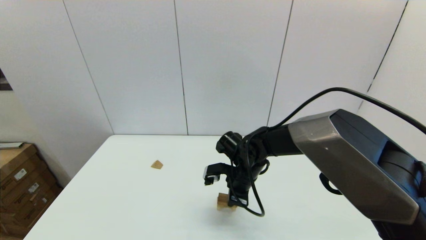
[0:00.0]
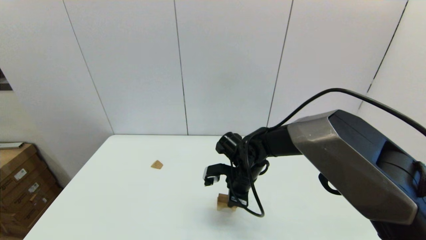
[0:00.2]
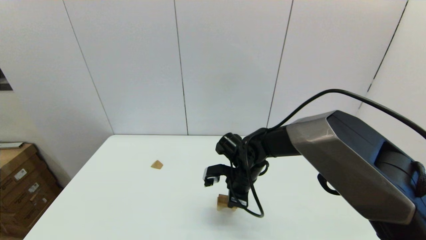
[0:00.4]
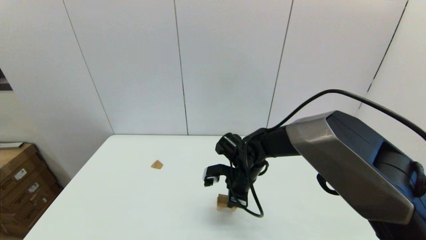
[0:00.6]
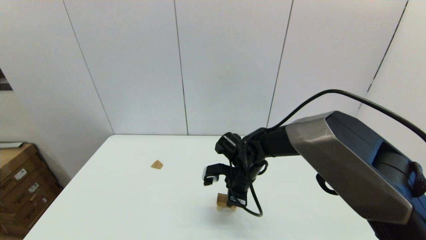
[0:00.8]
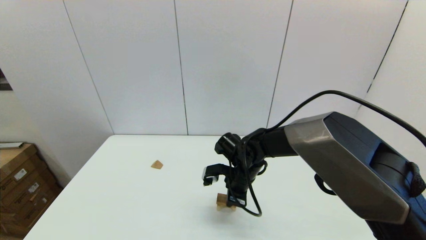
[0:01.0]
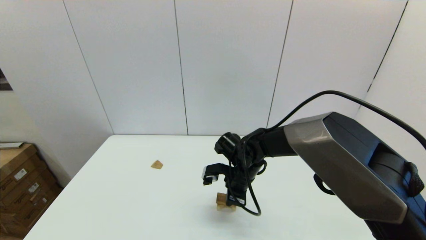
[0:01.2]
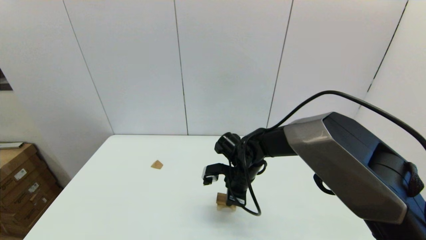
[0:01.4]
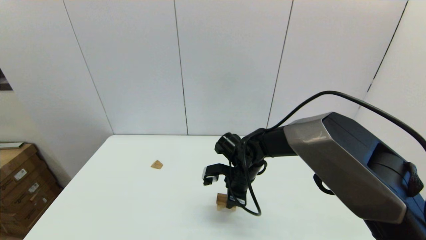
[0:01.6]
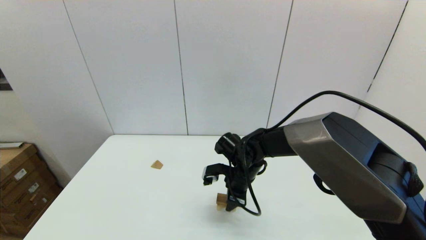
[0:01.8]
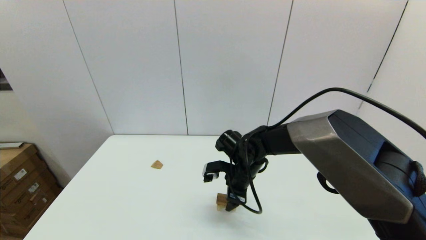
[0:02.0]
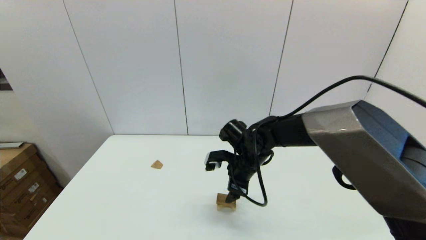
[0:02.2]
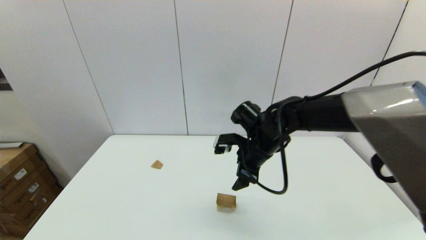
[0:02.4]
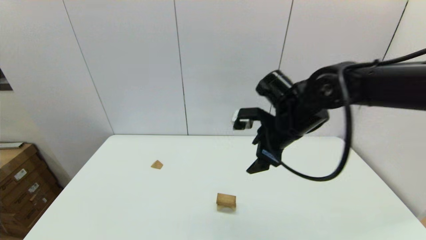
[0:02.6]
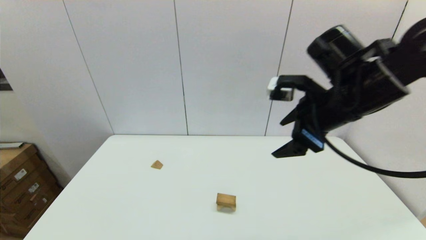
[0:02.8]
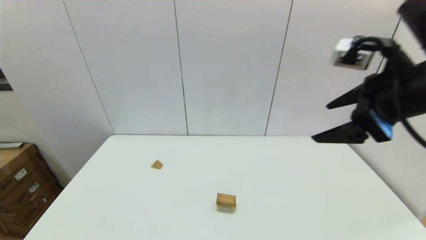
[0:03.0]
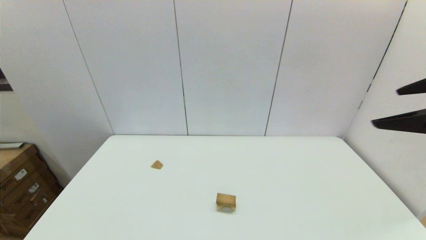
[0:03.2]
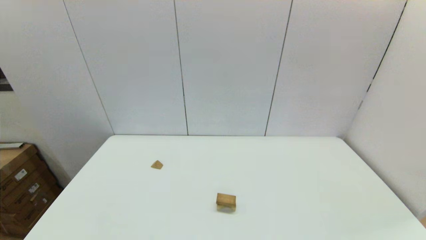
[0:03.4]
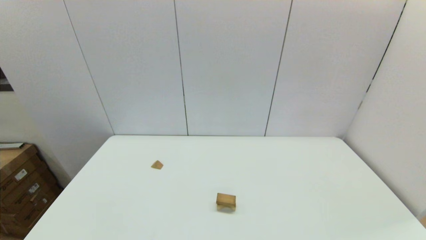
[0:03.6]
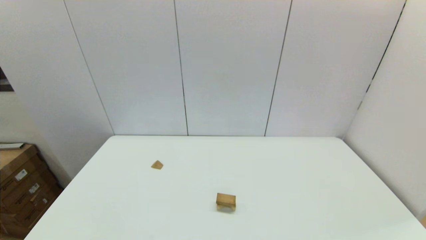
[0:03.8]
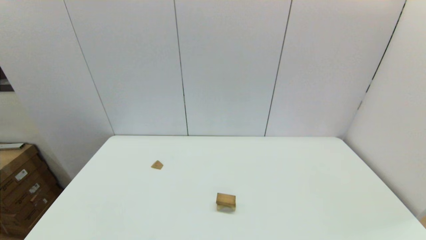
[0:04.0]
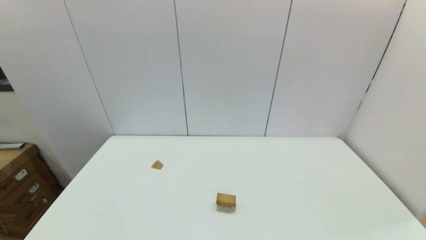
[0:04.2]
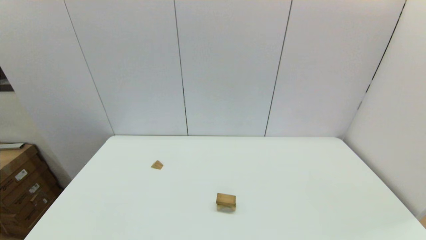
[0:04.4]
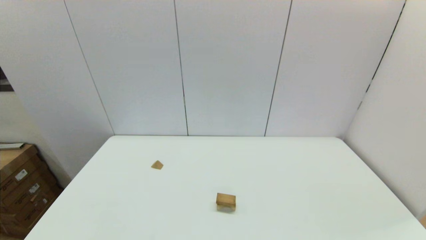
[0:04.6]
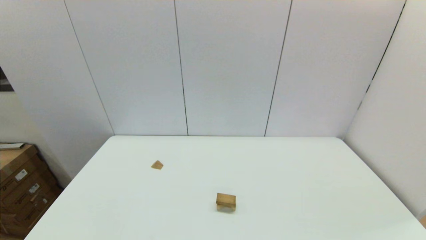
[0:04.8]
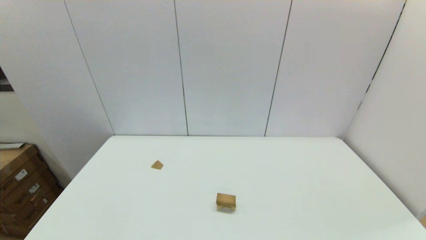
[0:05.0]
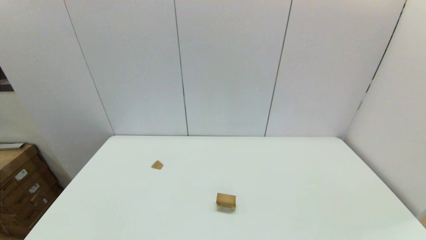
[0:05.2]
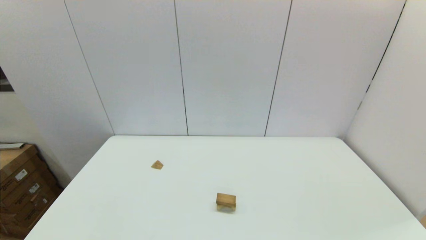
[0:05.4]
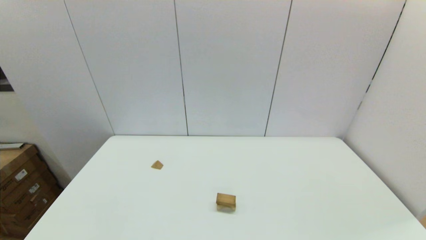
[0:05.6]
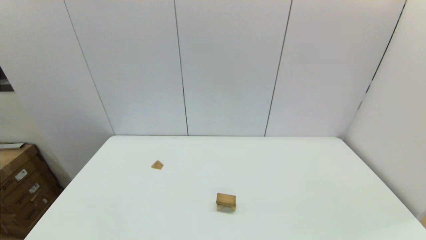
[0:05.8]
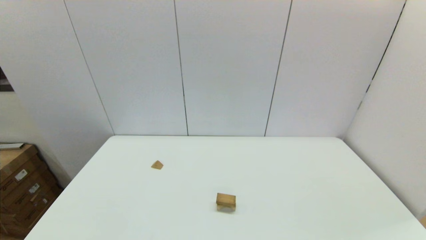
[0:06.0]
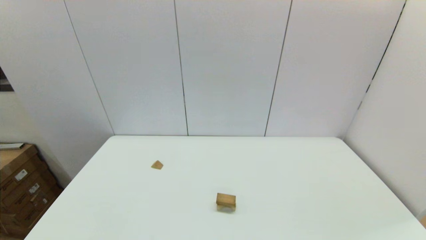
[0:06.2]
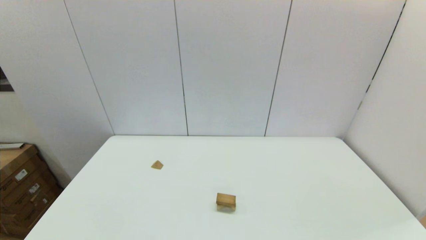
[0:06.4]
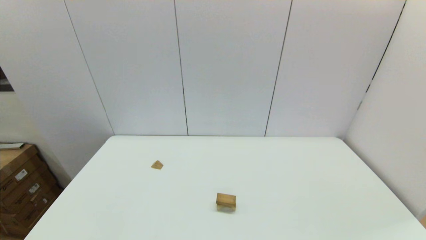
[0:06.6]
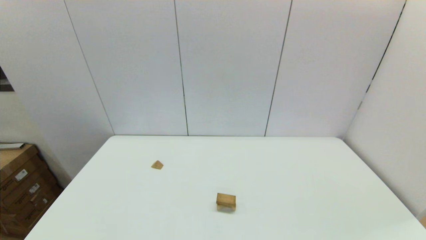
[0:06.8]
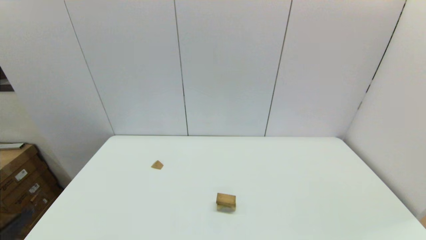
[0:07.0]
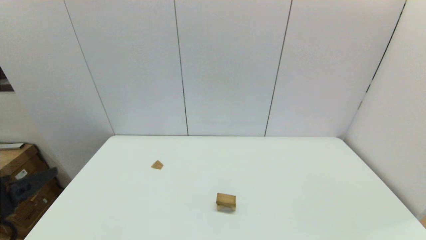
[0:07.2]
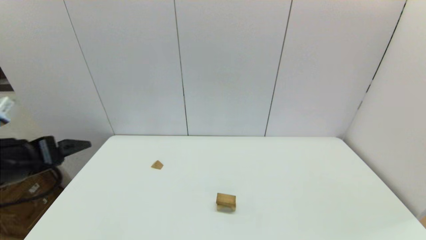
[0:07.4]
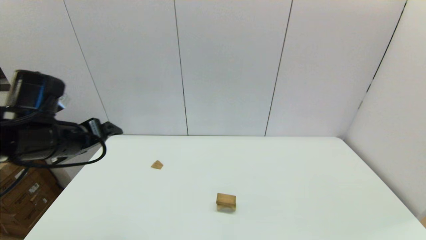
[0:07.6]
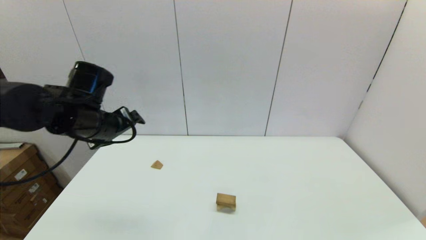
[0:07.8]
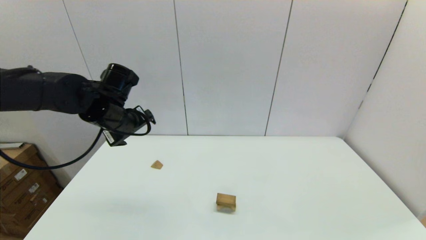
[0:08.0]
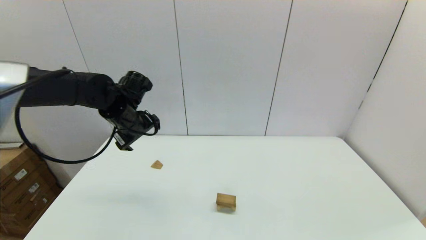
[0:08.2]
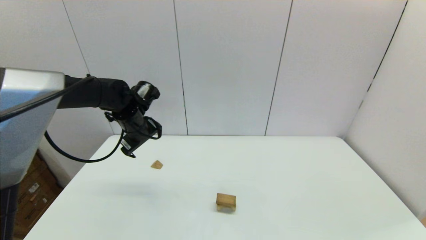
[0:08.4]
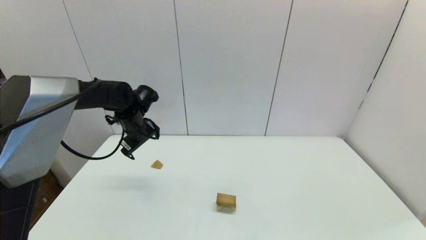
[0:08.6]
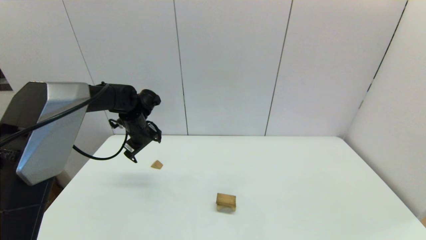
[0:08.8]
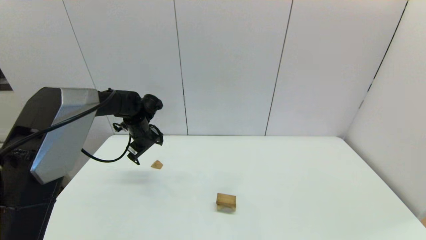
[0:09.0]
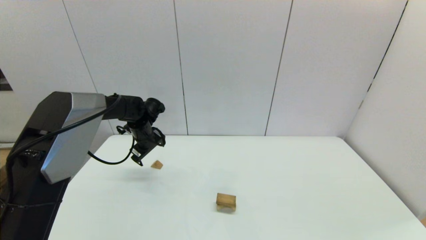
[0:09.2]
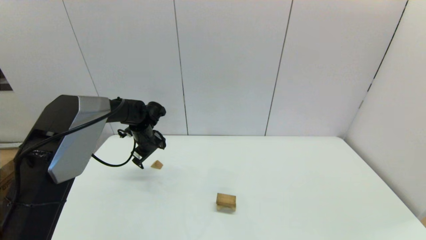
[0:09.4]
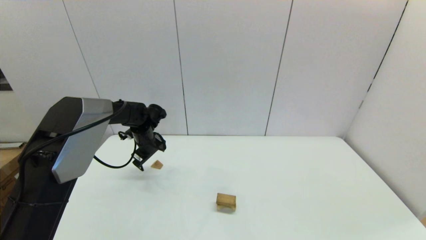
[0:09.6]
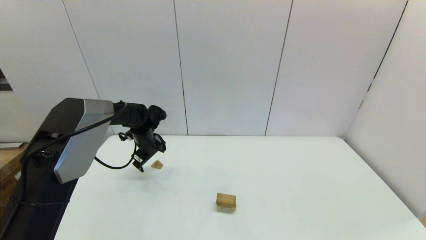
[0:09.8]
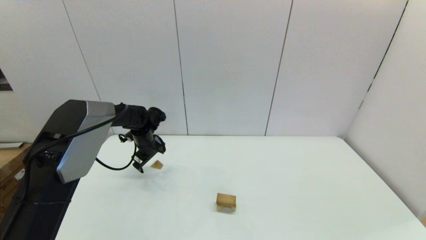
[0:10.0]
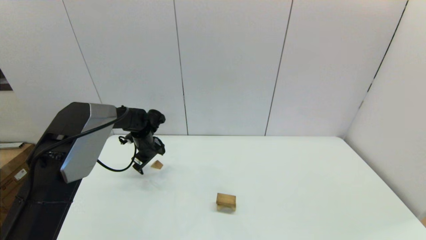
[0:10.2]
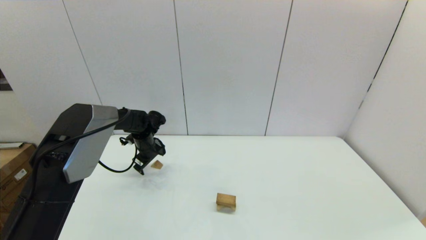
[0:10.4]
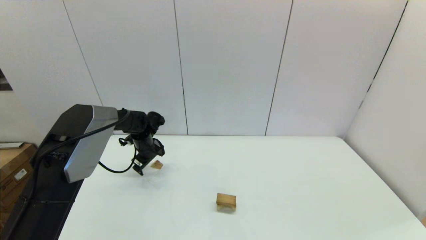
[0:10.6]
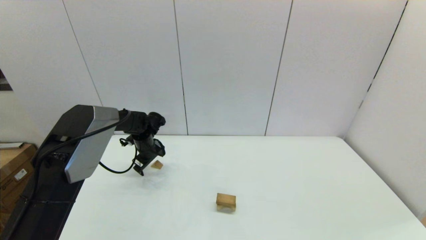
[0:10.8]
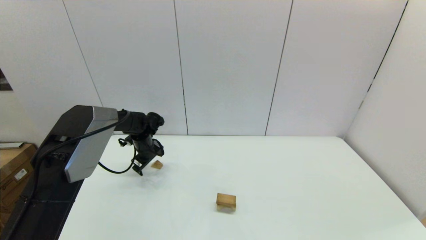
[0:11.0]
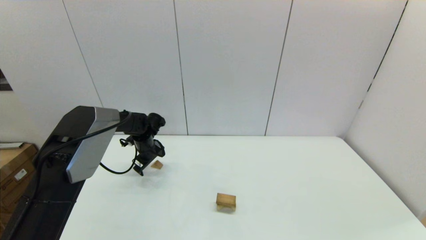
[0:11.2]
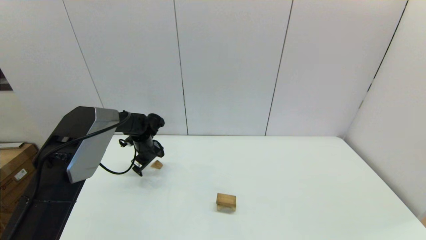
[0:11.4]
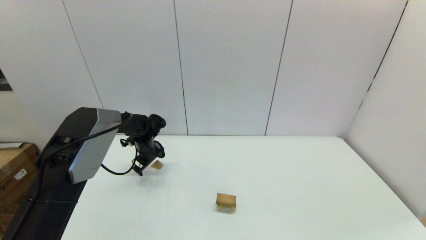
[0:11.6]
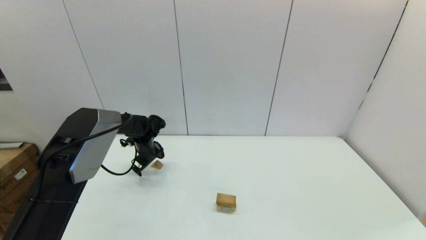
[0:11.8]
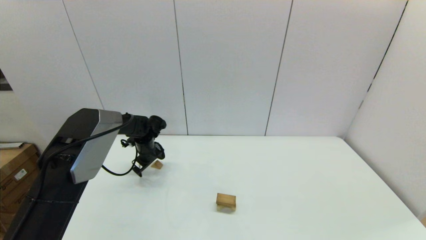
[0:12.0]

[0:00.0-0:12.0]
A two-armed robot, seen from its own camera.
Task of the whole recording: place the arched building blocks in the center of the table, set up the rectangular building blocks, and then set up the triangular building blocks.
0:00.0 to 0:01.6: Neither gripper changes place.
0:01.6 to 0:03.0: The right gripper heads upward, to the right and backward, covering roughly 35 cm, and opens.
0:03.0 to 0:04.4: The right gripper is displaced backward and downward by roughly 35 cm.
0:06.0 to 0:07.6: The left gripper shifts some 30 cm forward and upward.
0:07.6 to 0:09.0: The left gripper travels forward and downward by roughly 20 cm.
0:09.0 to 0:10.4: The left gripper is displaced downward by roughly 5 cm.
0:10.4 to 0:12.0: The grippers move only a little.

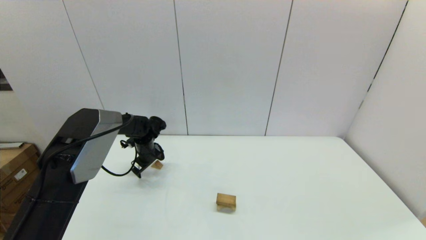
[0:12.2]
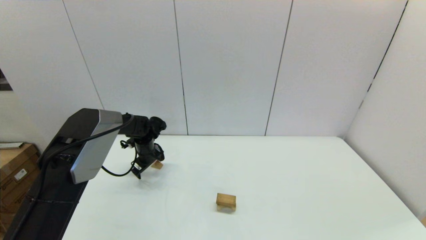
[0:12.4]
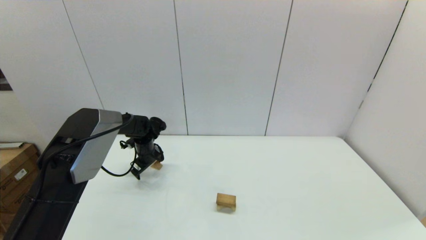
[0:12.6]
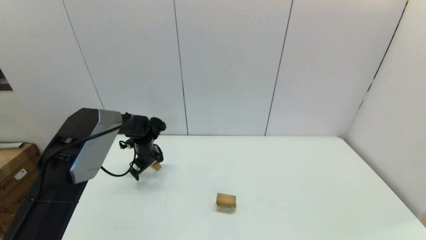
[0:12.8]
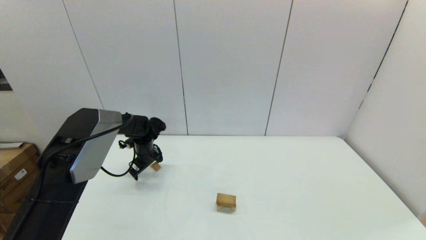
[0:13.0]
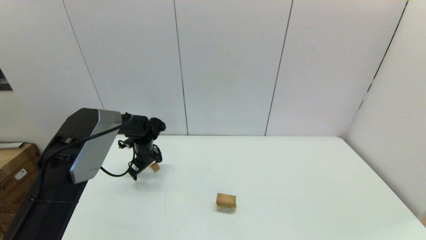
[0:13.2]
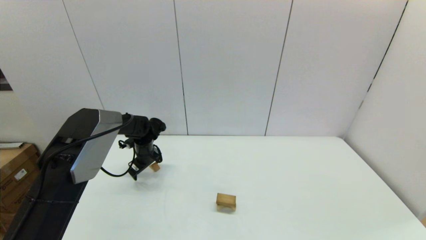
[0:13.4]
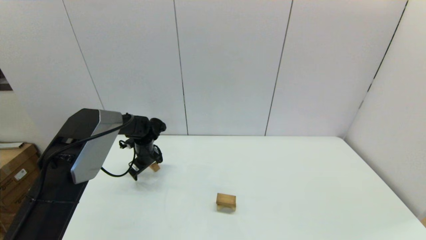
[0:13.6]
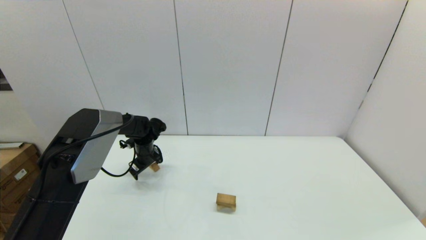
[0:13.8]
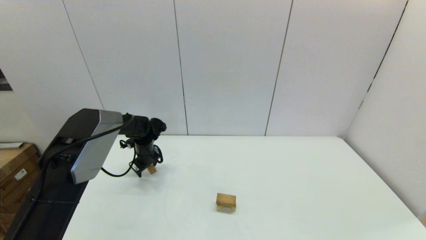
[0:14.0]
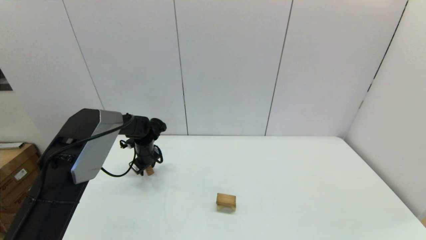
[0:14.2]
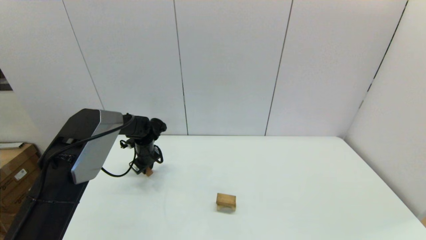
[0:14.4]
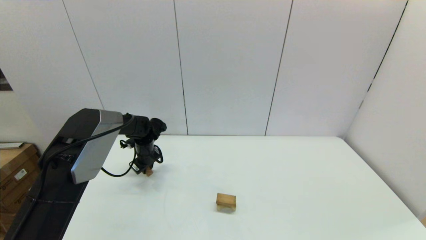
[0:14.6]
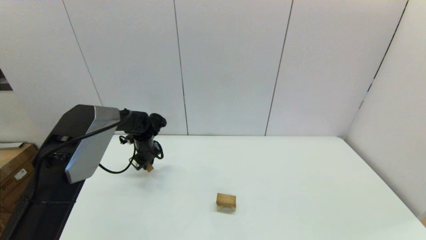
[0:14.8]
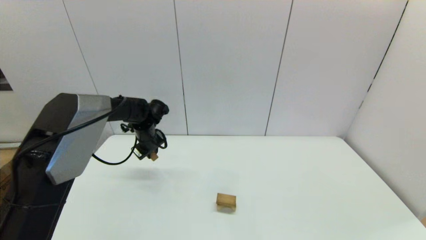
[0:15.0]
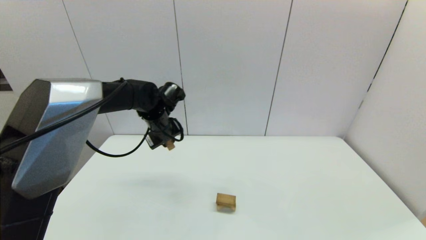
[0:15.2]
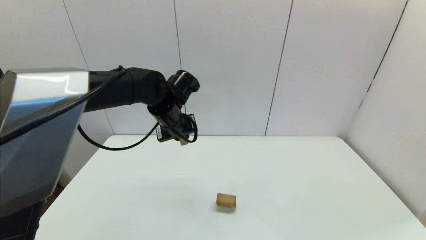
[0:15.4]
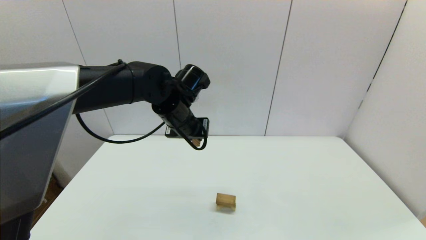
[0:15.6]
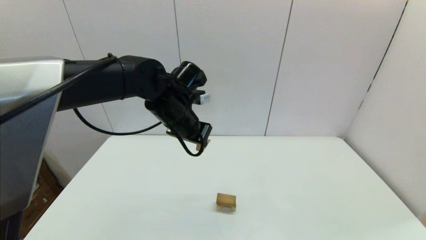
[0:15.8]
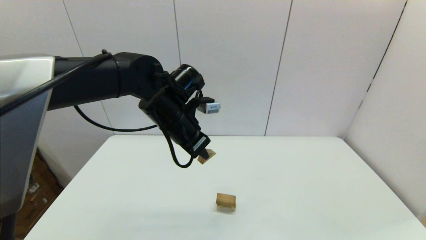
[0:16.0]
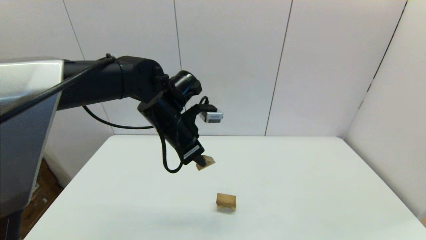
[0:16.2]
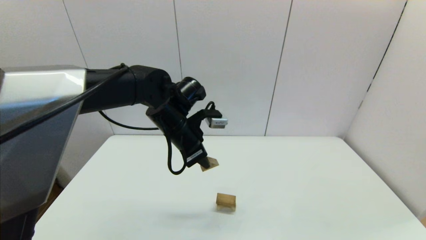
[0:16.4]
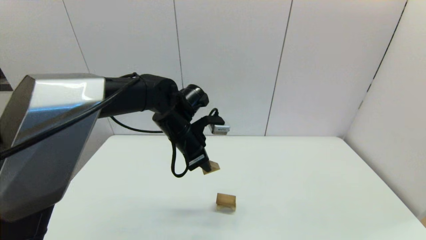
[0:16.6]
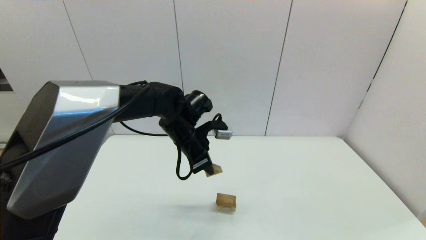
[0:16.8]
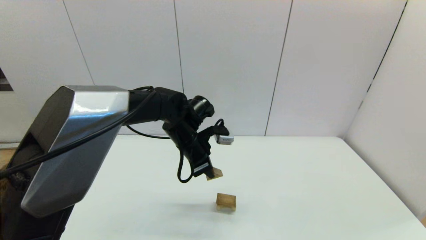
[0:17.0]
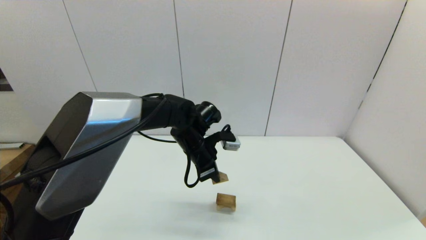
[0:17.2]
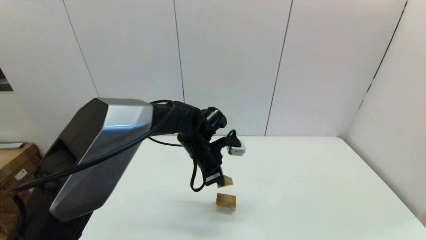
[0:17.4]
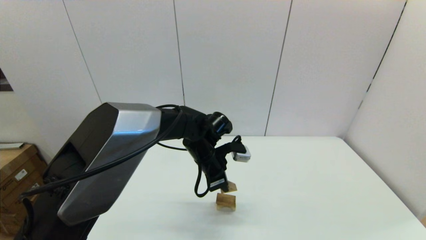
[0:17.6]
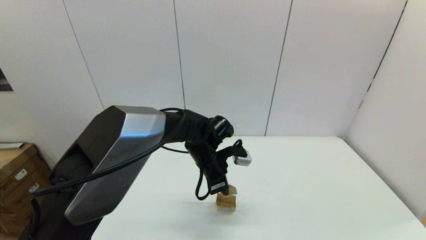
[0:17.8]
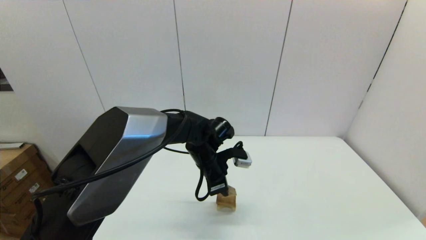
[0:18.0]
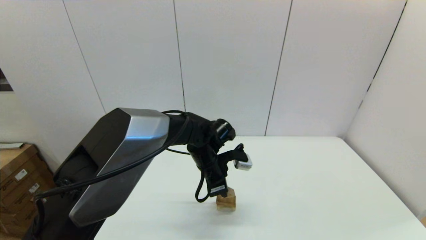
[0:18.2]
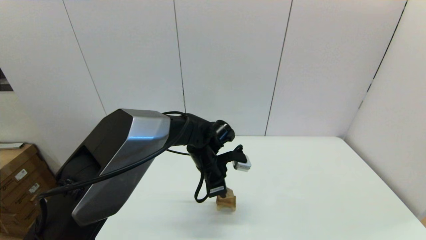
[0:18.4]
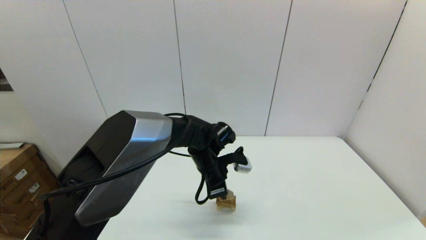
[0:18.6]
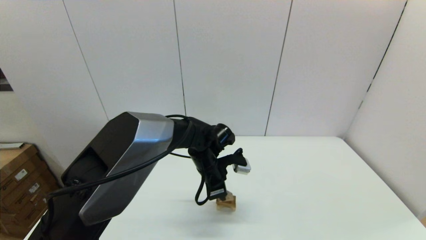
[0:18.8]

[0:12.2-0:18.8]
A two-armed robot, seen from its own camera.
Task of the whole recording: place the arched building blocks in the center of the table, set up the rectangular building blocks, and then set up the triangular building blocks.
0:12.2 to 0:13.8: Neither gripper changes place.
0:13.8 to 0:15.4: The left gripper travels upward, to the right and backward by approximately 25 cm, and closes.
0:15.4 to 0:17.2: The left gripper goes roughly 5 cm downward.
0:17.2 to 0:18.8: The left gripper moves downward, about 5 cm.
